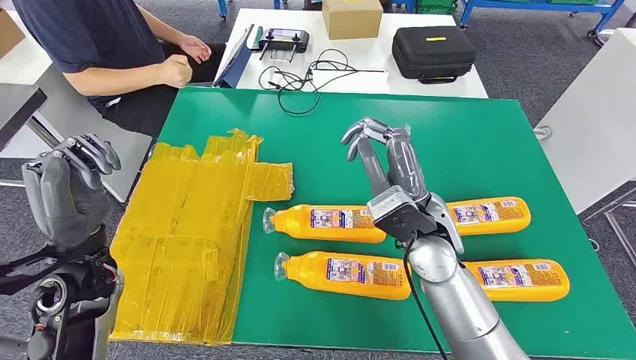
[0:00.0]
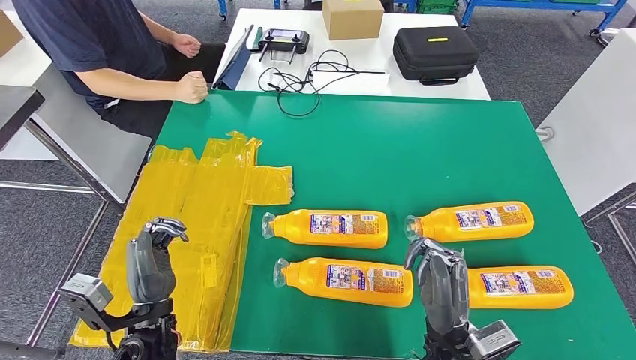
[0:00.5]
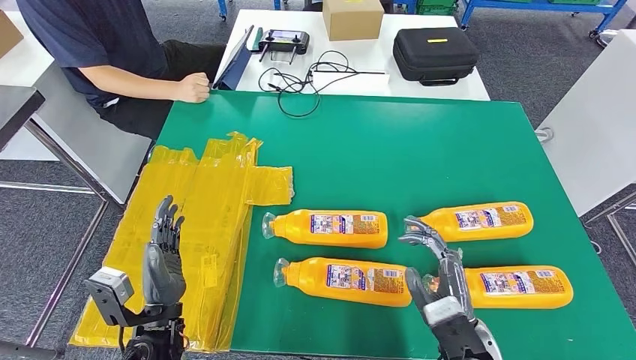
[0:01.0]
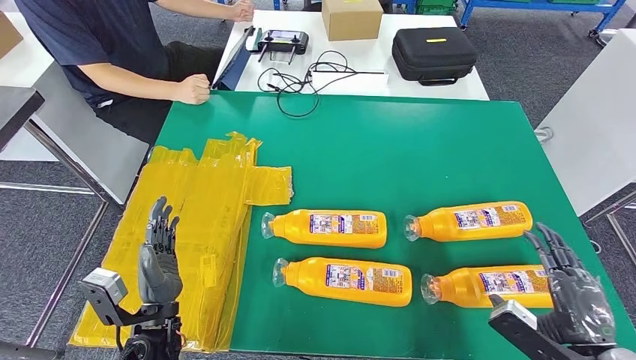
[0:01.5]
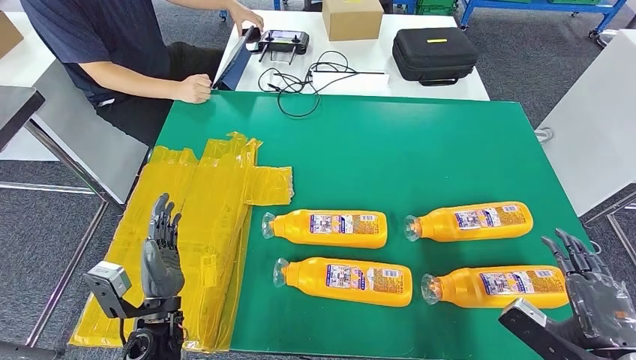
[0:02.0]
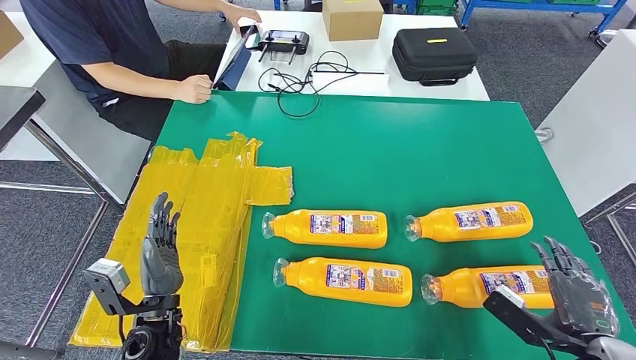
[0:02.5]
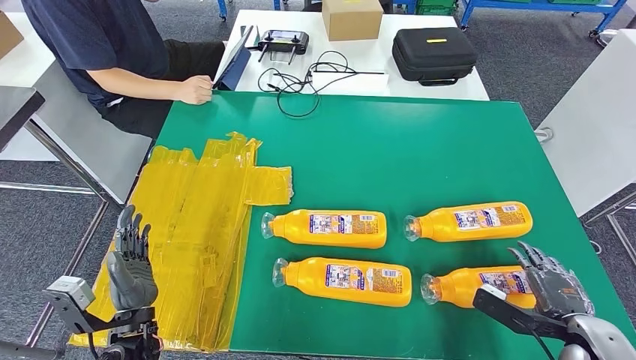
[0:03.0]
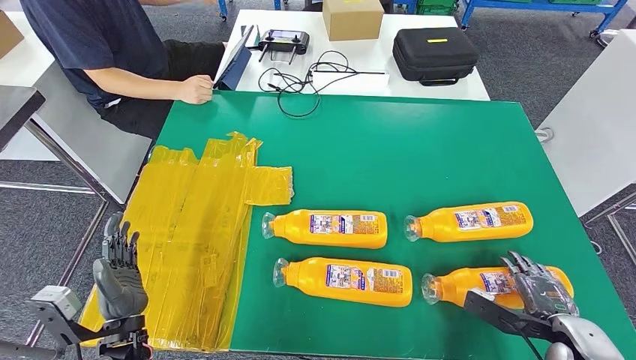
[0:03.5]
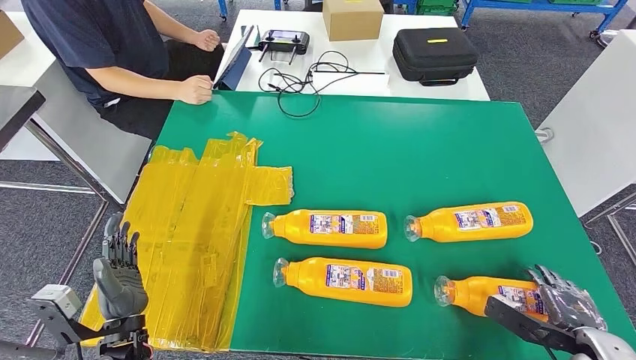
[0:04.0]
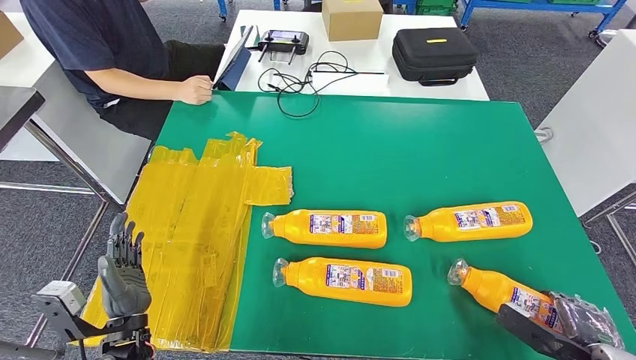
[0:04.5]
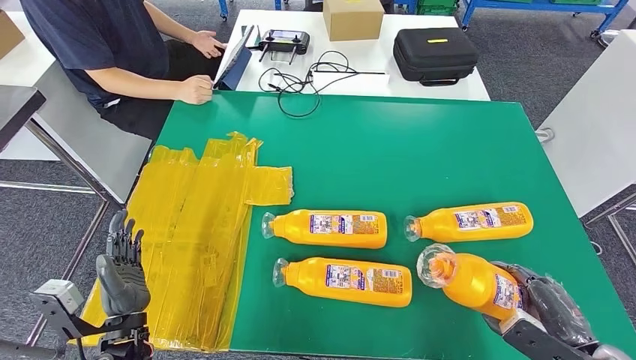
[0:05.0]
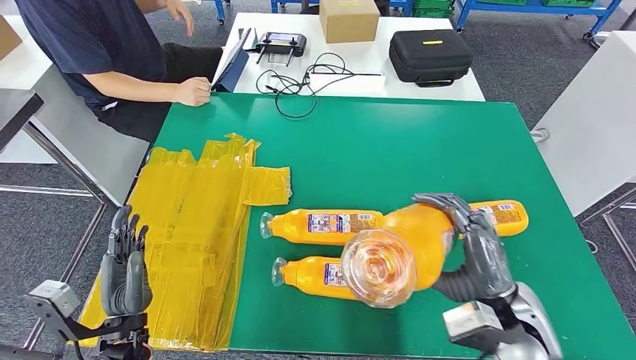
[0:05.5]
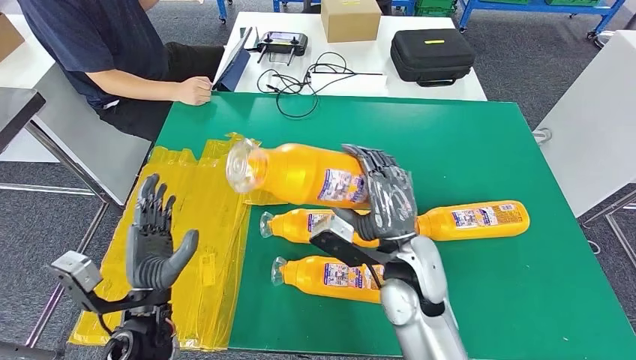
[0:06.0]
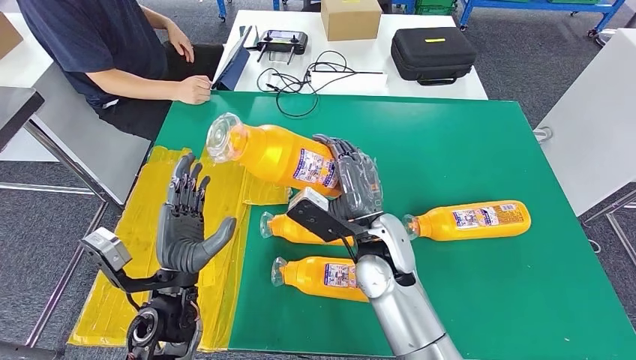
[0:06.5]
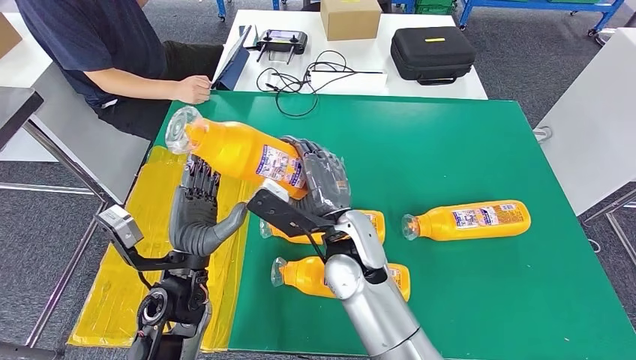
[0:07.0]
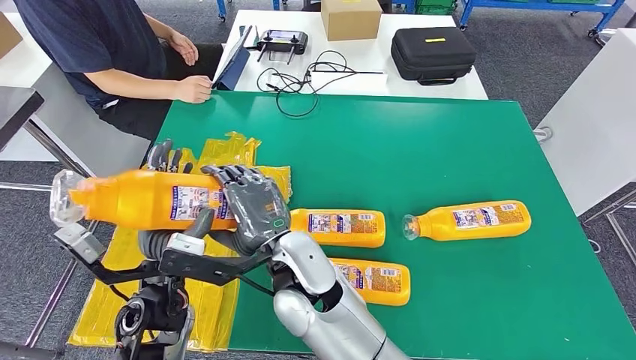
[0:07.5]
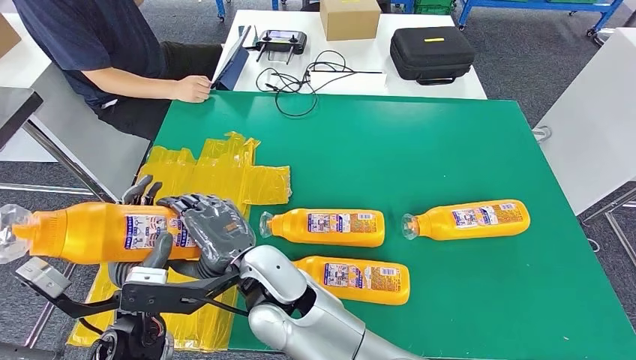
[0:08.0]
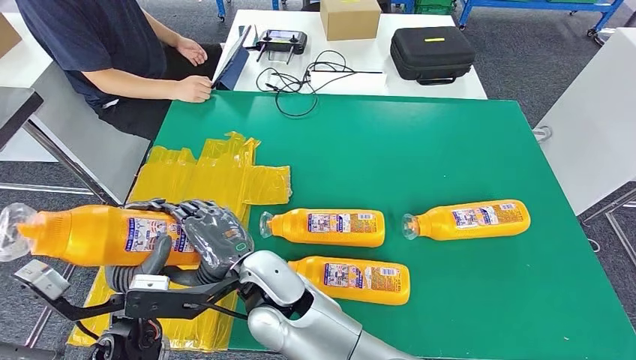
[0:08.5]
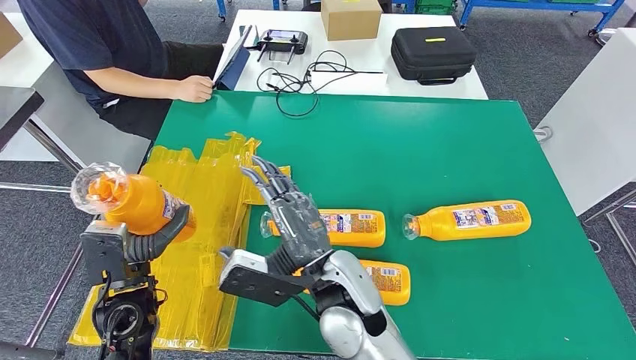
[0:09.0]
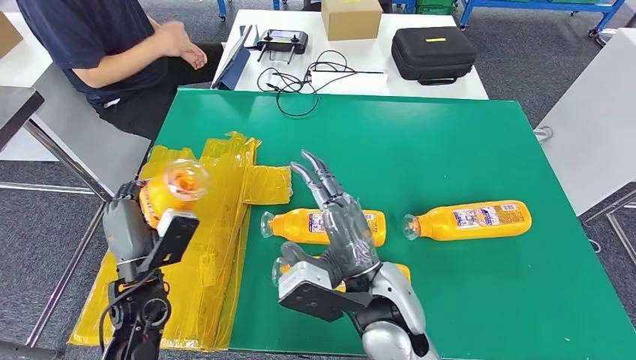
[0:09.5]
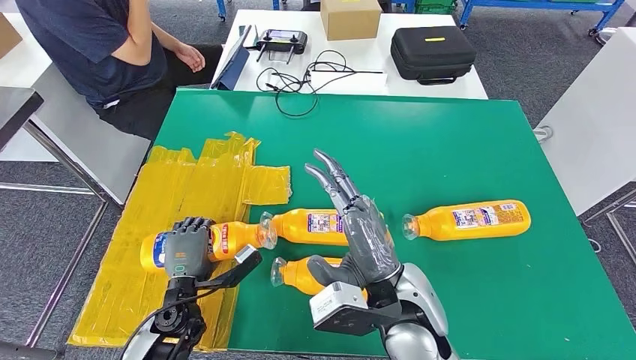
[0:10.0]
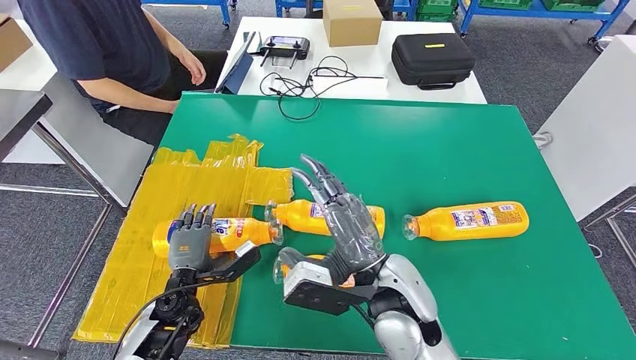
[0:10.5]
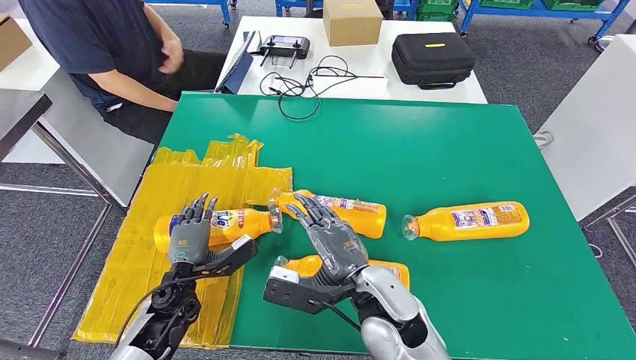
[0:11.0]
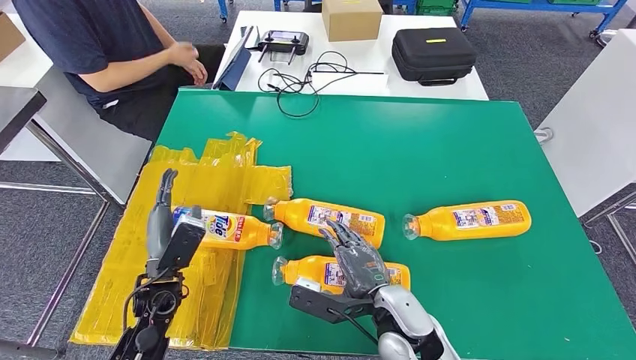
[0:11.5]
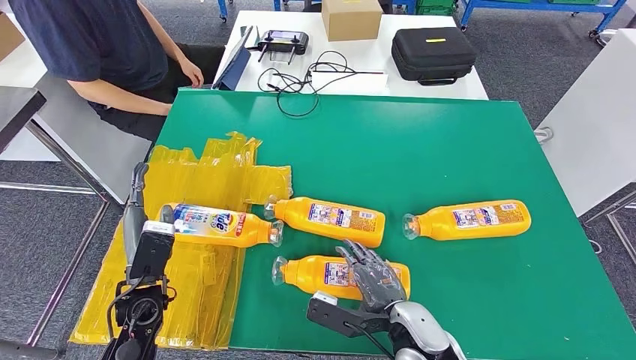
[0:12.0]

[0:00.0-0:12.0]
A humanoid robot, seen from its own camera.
Step, 0:00.0 to 0:06.5: Take the bottle from the table.
Step, 0:07.0 to 0:11.0: Flip the bottle to face forward.
0:02.0 to 0:04.0: The right hand heads downward, covering about 5 cm.
0:10.0 to 0:12.0: The right hand heads downward, to the right and backward, covering roughly 15 cm; the left hand goes approximately 5 cm upward.

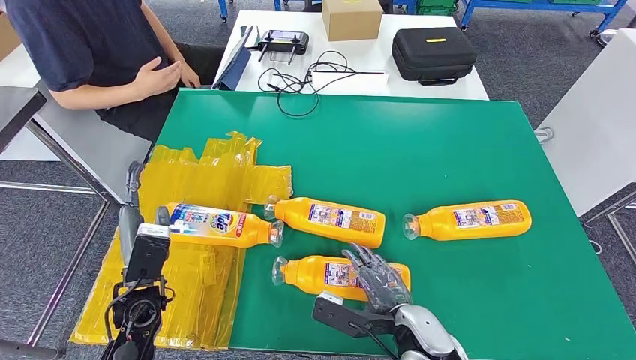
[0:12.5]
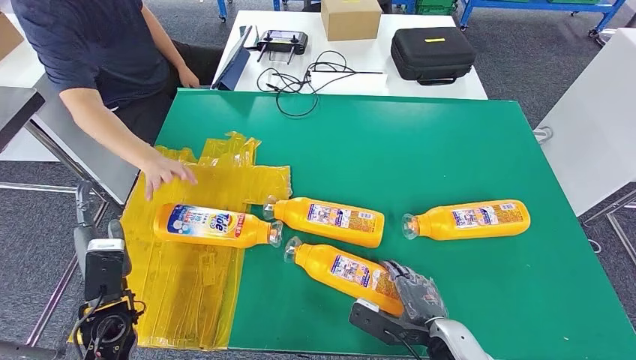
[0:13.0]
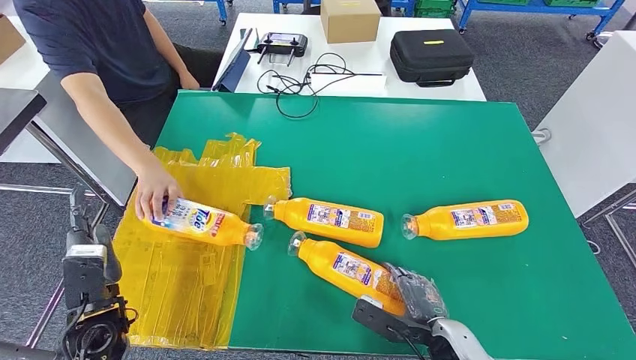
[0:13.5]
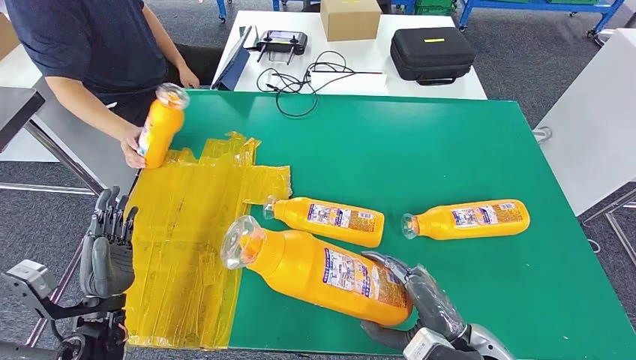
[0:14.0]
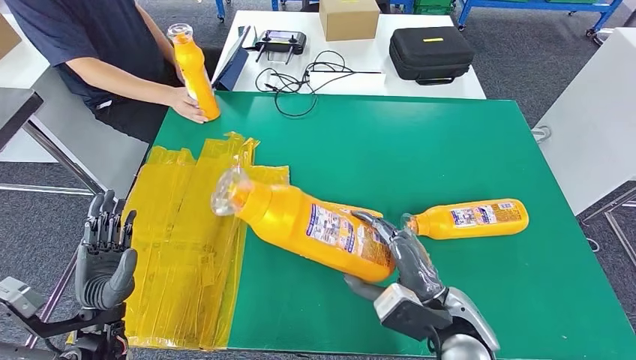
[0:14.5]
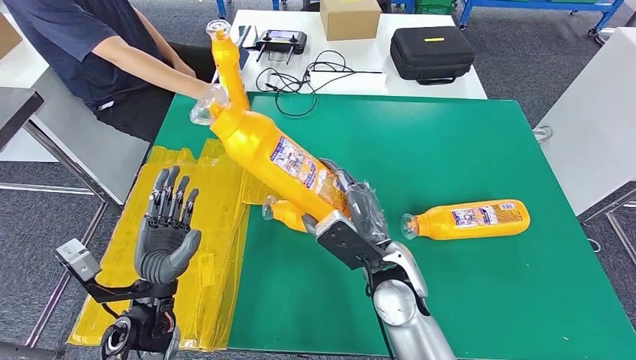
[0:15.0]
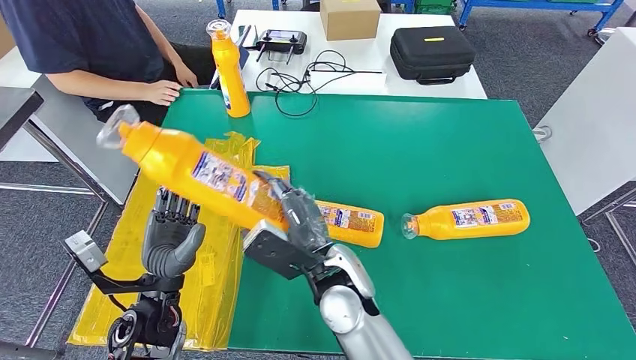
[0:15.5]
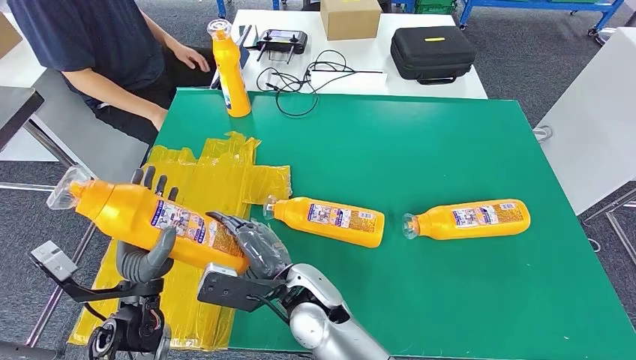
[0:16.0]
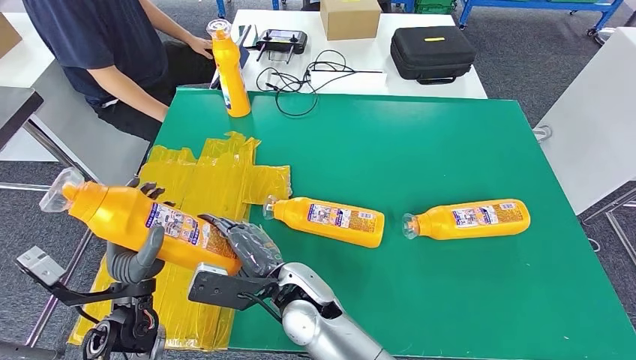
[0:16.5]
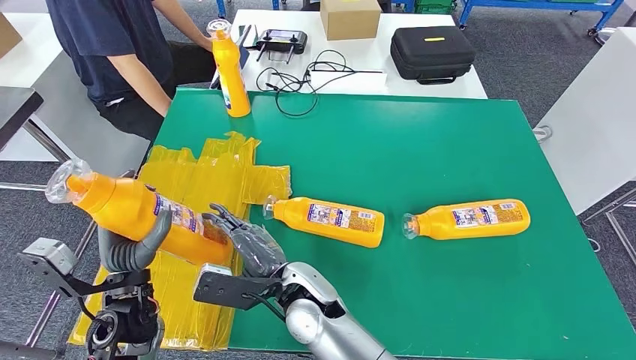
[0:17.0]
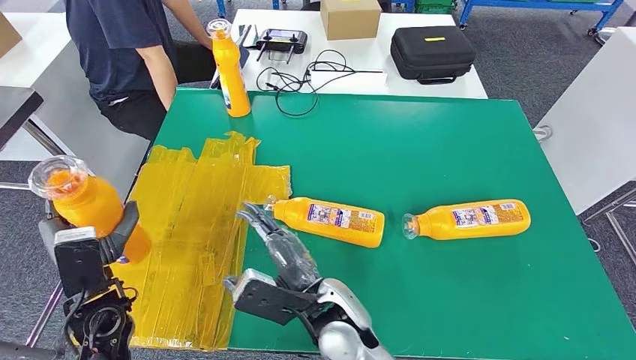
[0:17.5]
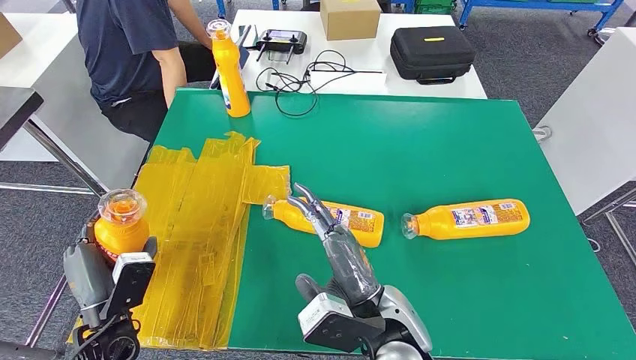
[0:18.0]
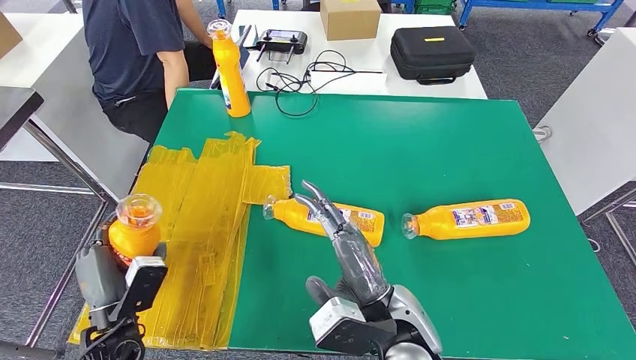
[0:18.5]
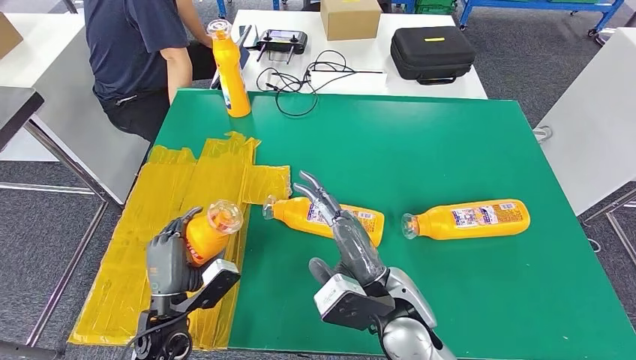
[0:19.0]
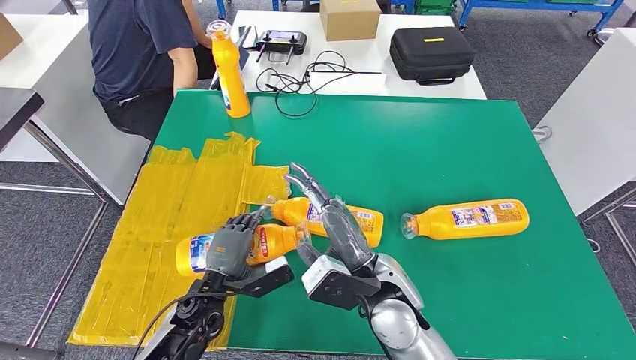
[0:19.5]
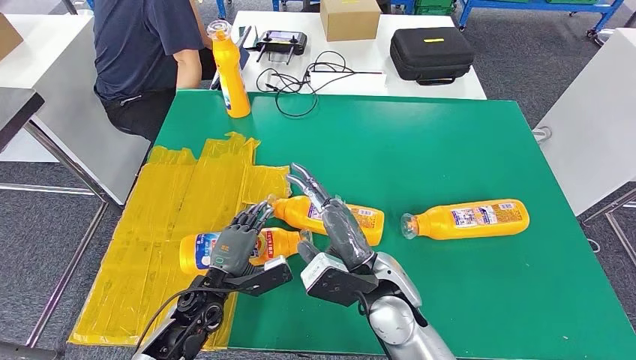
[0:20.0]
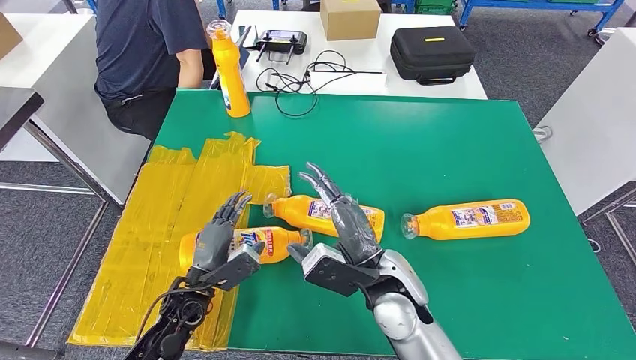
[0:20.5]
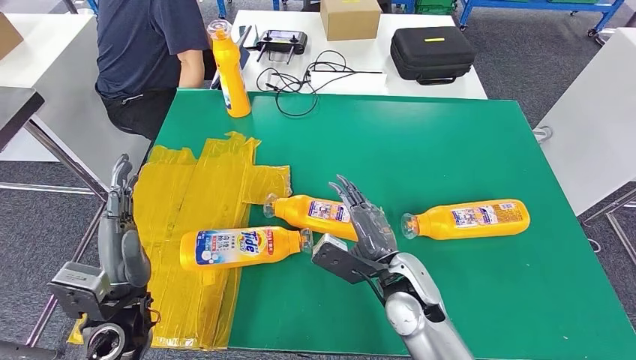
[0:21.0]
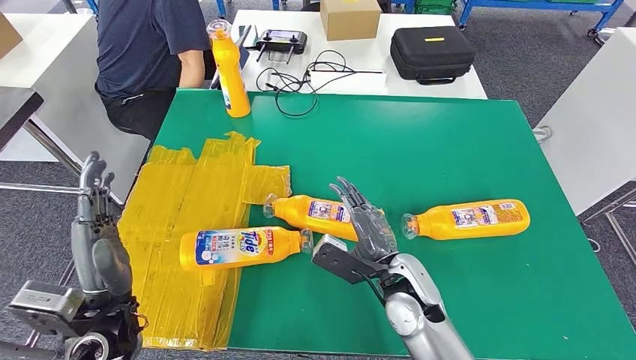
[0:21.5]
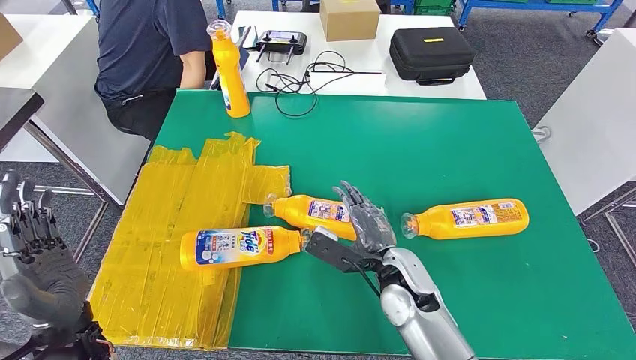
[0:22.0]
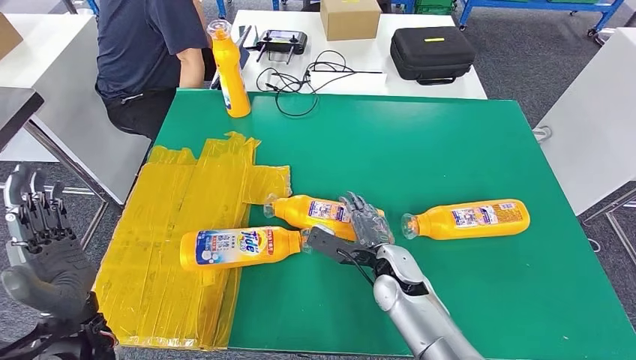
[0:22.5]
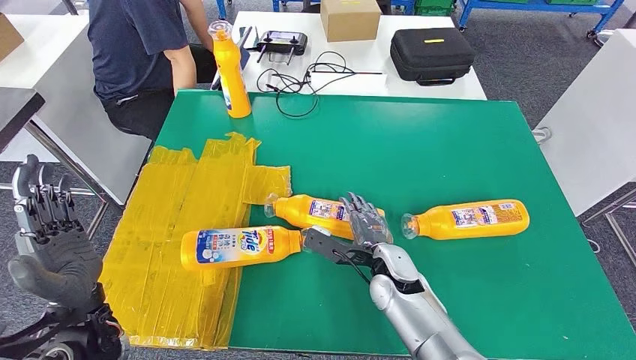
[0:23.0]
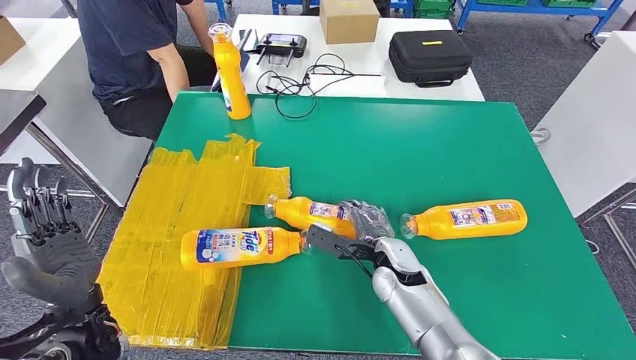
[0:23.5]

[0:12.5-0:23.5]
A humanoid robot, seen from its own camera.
Step, 0:12.5 to 0:16.0: Pick up the bottle from the table.
Step, 0:16.5 to 0:19.0: Flip the bottle to face forward.
0:18.0 to 0:20.0: The right hand heads forward, covering roughly 5 cm, while the left hand shifts approximately 10 cm to the right and forward.
0:20.0 to 0:21.5: The right hand goes roughly 5 cm to the right. The left hand heads upward and to the left, covering approximately 15 cm.
